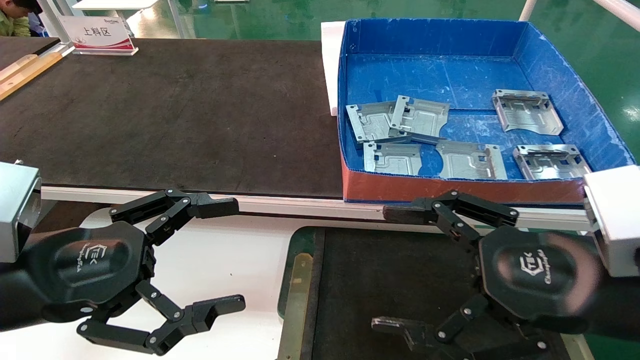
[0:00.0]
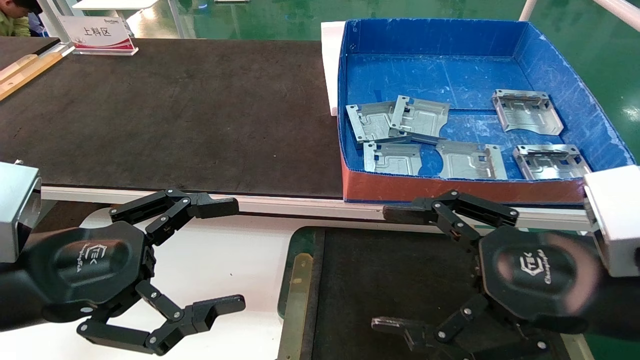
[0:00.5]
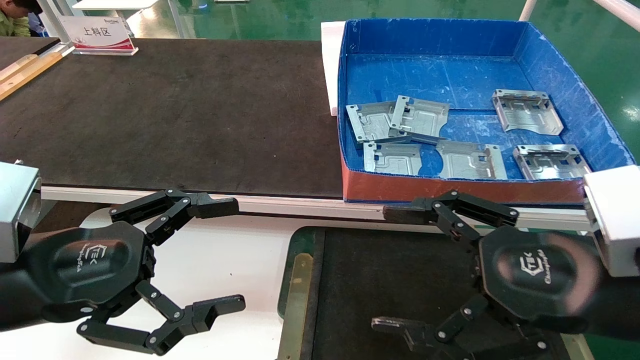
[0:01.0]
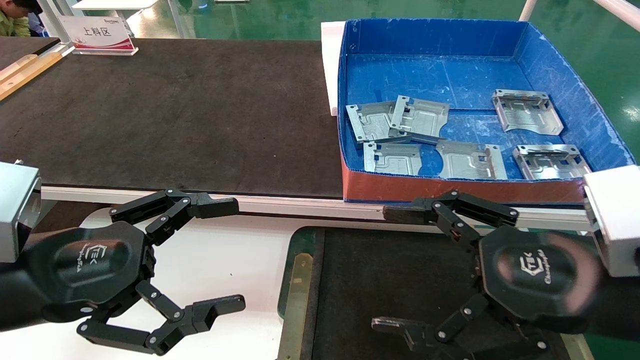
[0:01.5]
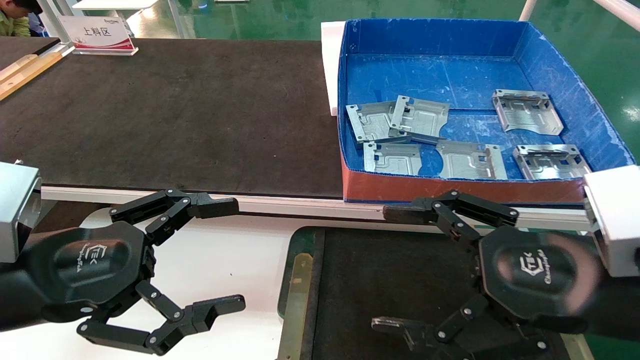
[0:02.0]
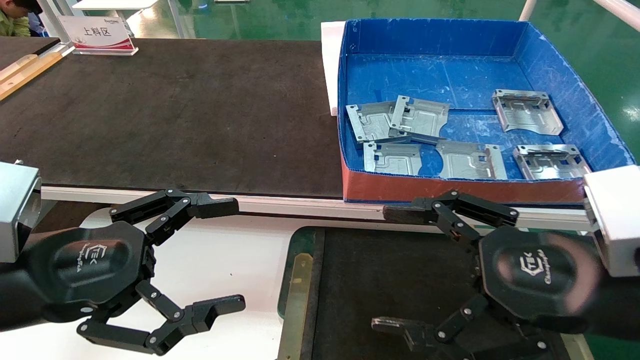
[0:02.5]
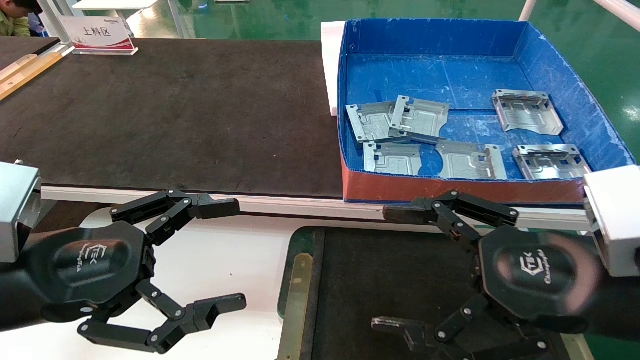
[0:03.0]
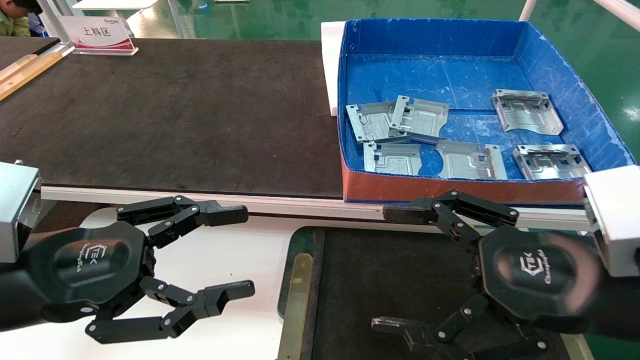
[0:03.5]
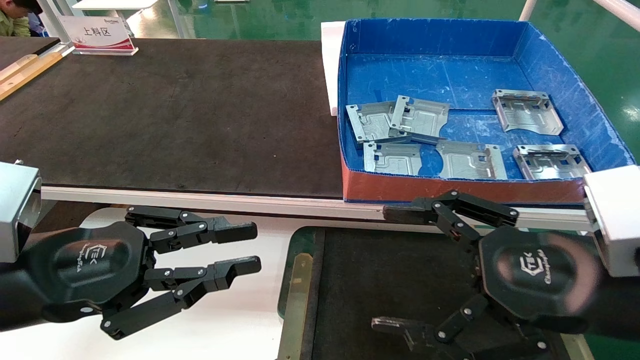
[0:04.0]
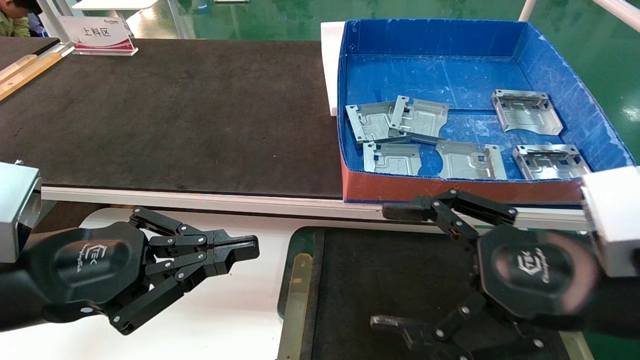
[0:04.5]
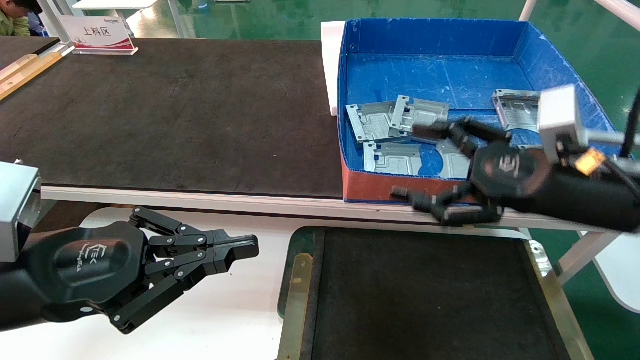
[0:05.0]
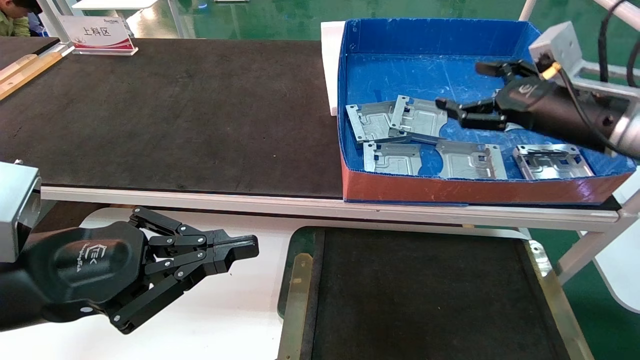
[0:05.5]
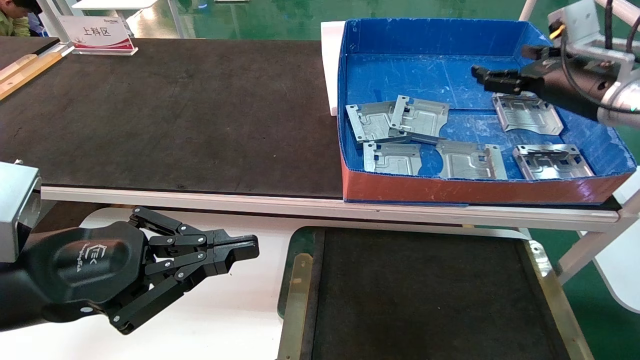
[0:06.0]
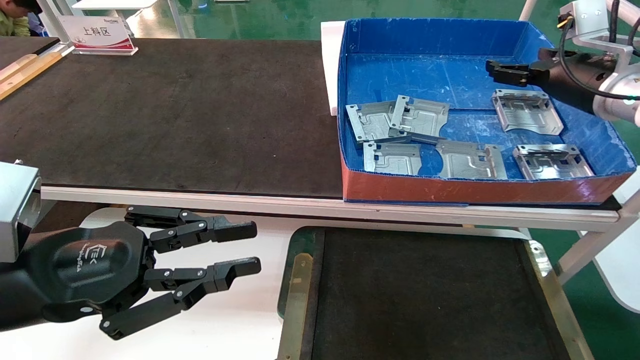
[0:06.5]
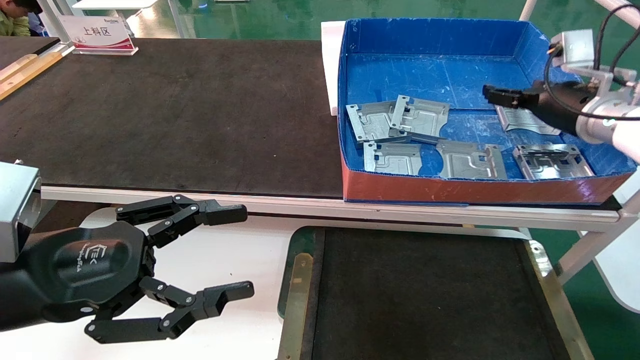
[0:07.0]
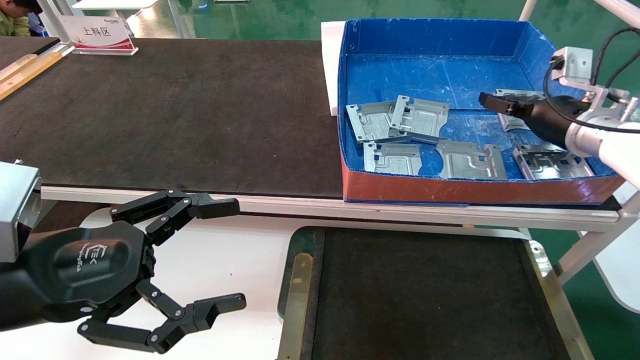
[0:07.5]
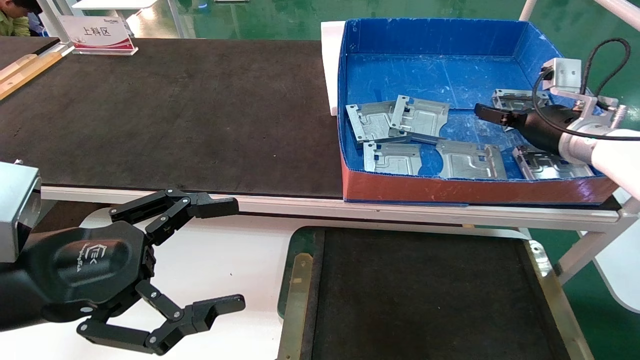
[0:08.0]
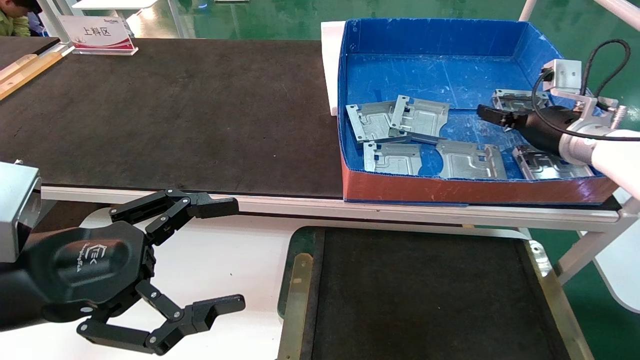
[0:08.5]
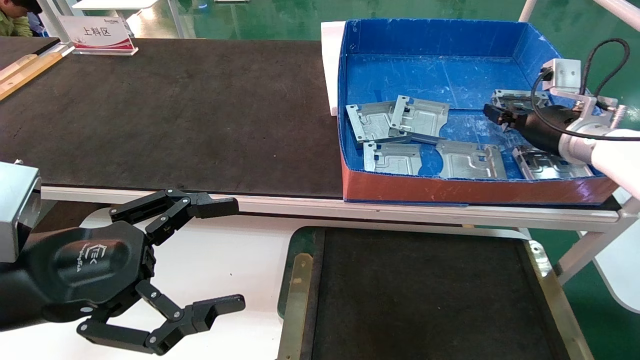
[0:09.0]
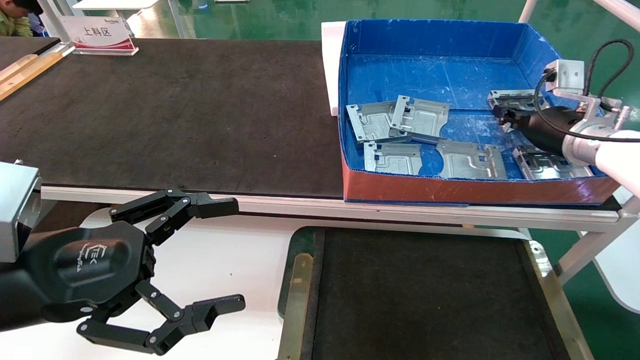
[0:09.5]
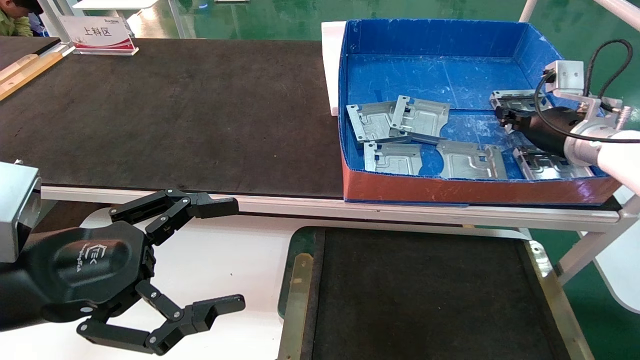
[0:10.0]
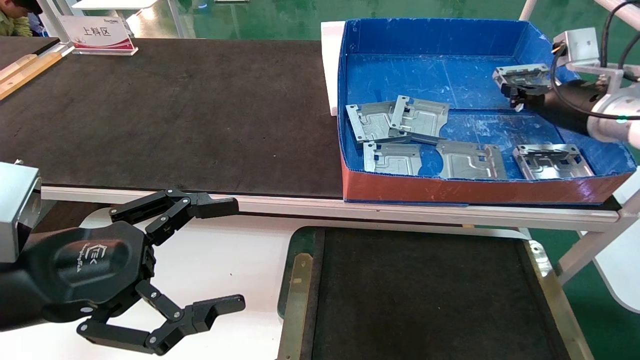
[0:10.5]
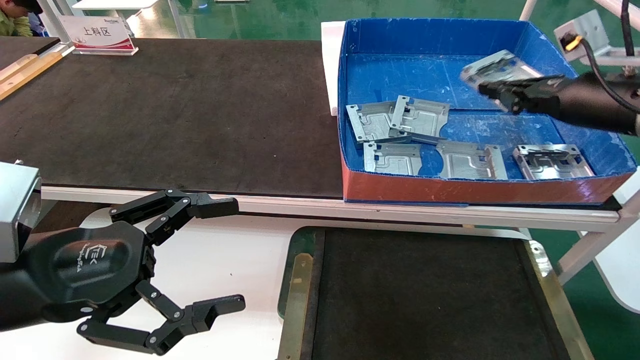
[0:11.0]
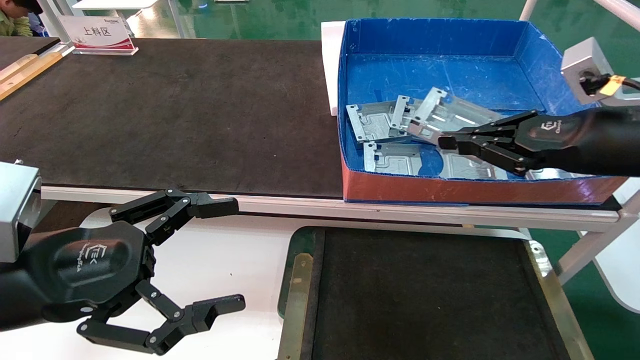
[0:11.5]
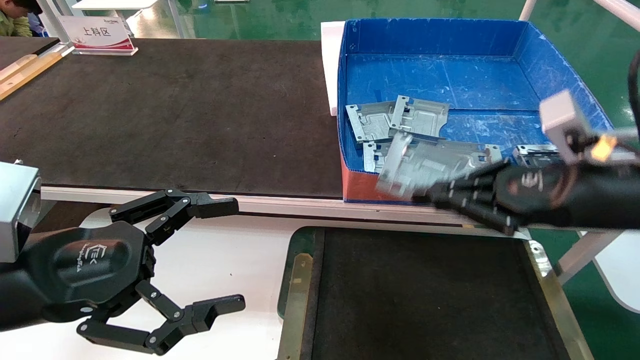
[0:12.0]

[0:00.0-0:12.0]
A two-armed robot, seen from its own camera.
Task of the whole recording: pick up parts and place them into a black container.
Step, 0:05.5 to 0:09.5: Pick up the hard drive bracket from the feeding area.
0:00.0 to 0:02.0: Both grippers stay about where they are.
0:02.0 to 0:04.0: The left gripper closes its fingers.
0:04.0 to 0:06.0: The right gripper heads forward, to the right and upward, covering about 30 cm; the left gripper closes its fingers.
0:06.0 to 0:08.0: The right gripper is displaced downward by roughly 5 cm. Meanwhile the left gripper opens its fingers.
0:08.0 to 0:10.0: The right gripper closes.
0:10.0 to 0:12.0: The right gripper goes some 20 cm backward.

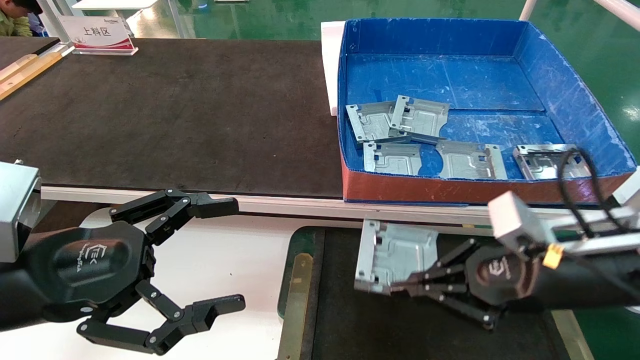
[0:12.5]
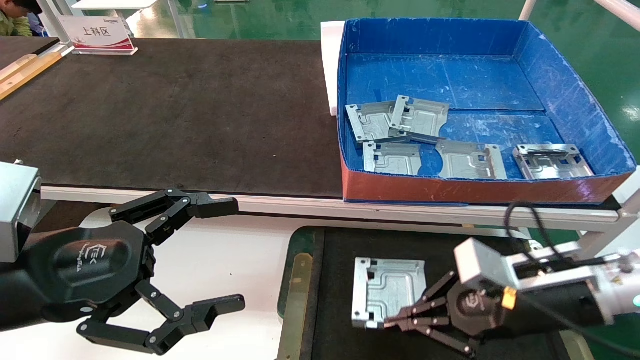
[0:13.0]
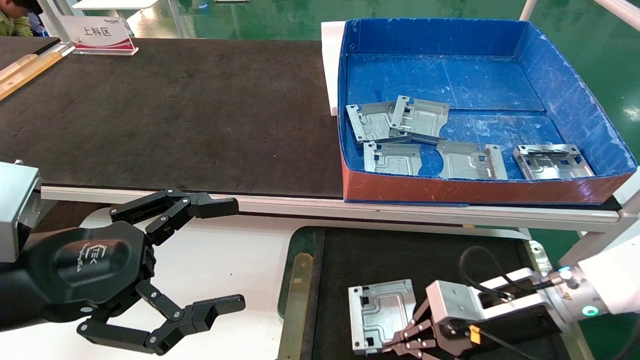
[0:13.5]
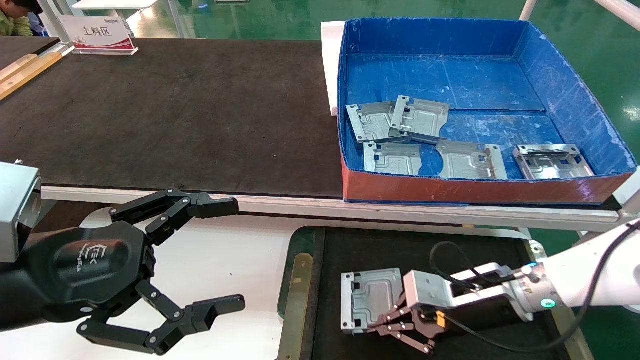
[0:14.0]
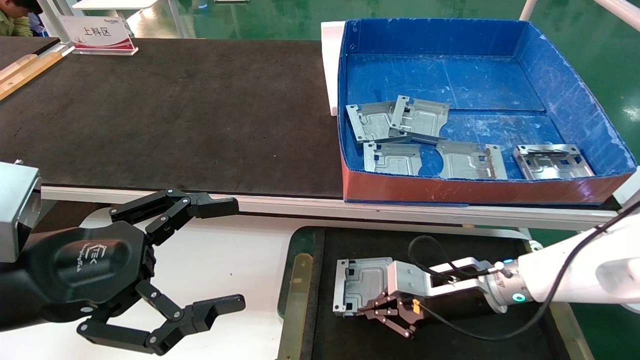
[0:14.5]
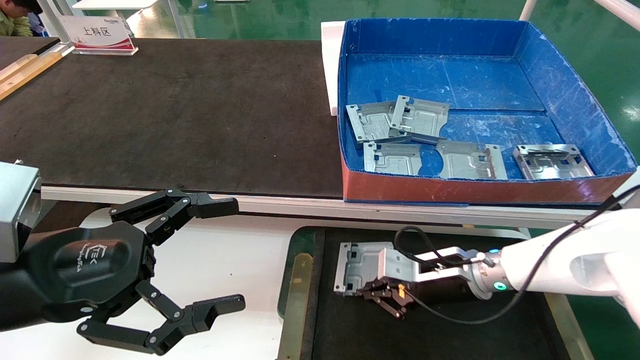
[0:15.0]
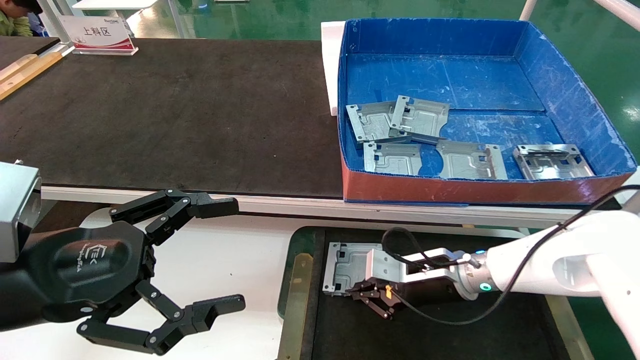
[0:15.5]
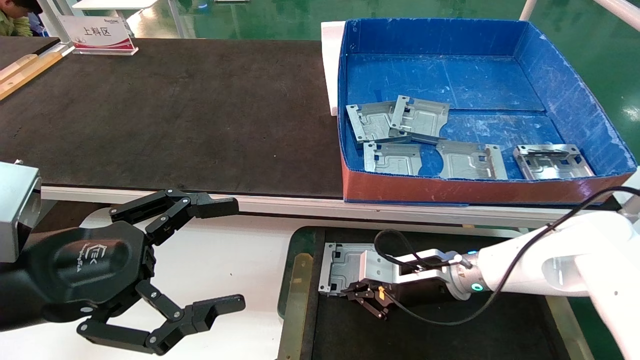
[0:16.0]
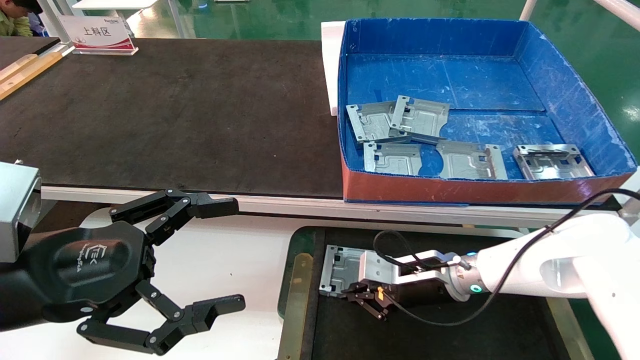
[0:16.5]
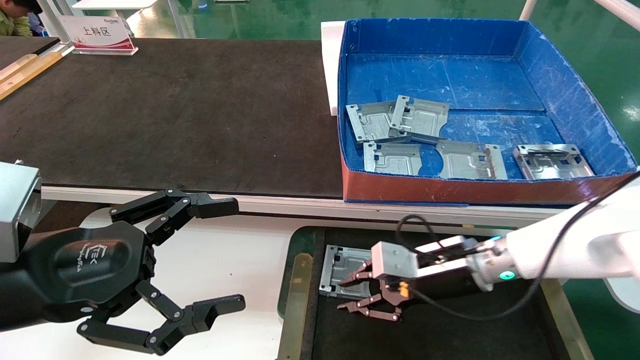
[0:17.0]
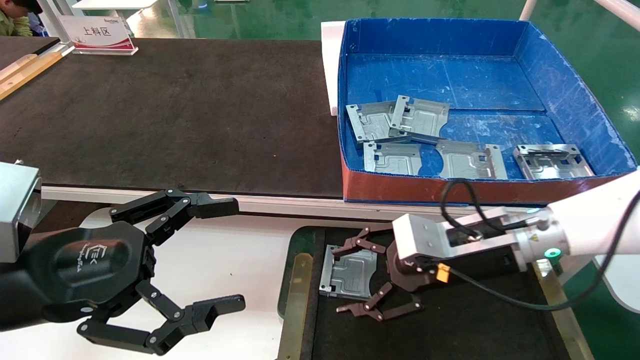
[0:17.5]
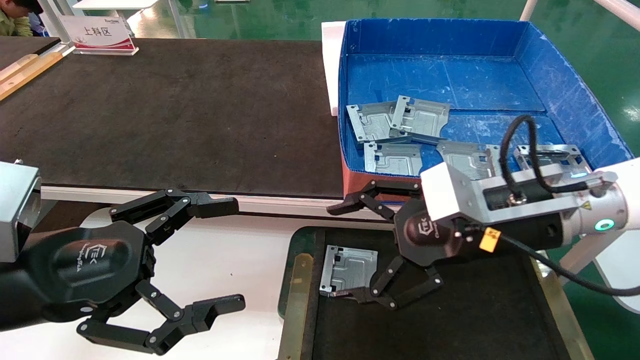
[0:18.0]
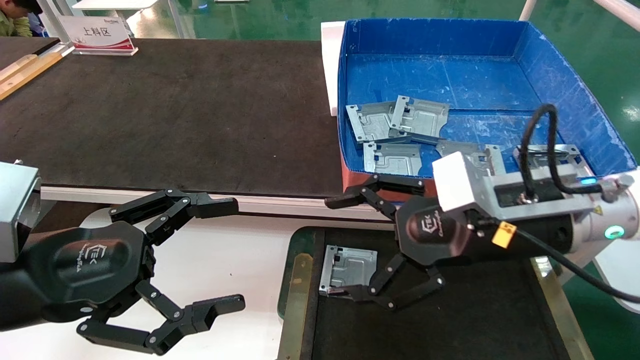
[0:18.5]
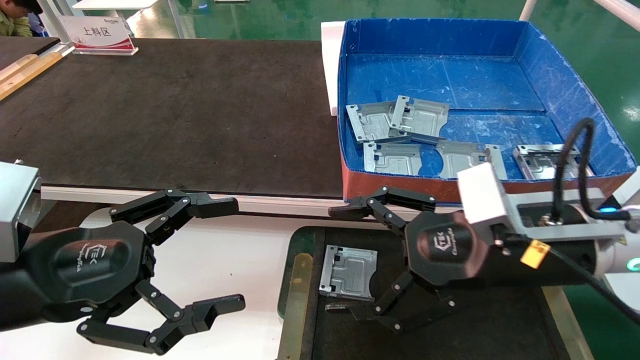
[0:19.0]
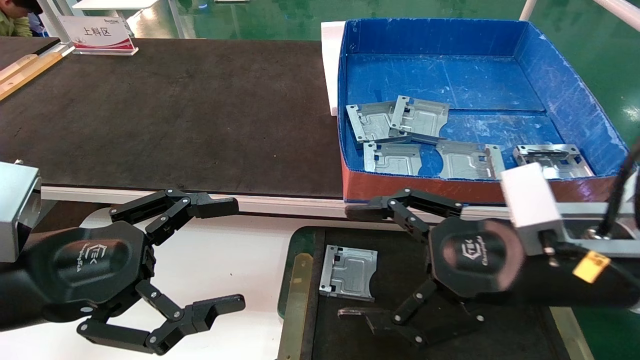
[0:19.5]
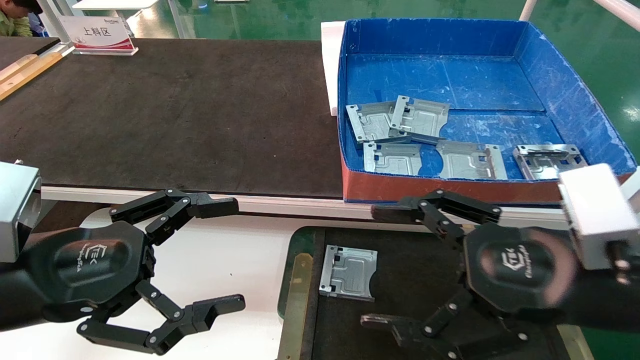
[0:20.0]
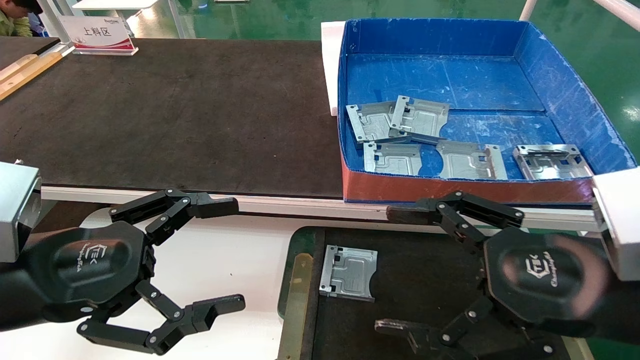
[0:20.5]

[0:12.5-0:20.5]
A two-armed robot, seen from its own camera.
Task of the whole recording: pick up parts and place them into a black container.
Step, 0:12.5 to 0:16.5: Place the hard drive bracket into the box.
0:12.5 to 0:14.5: The right gripper moves downward, forward and to the left, approximately 15 cm.
0:14.5 to 0:16.5: There are only small adjustments of the grippers.
0:16.5 to 0:18.5: The right gripper travels upward and backward by about 20 cm, and opens.
0:18.5 to 0:20.5: The right gripper goes about 10 cm backward and to the right.
